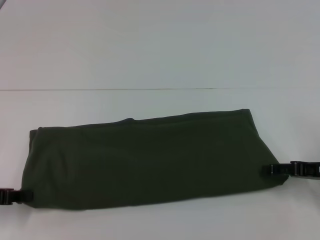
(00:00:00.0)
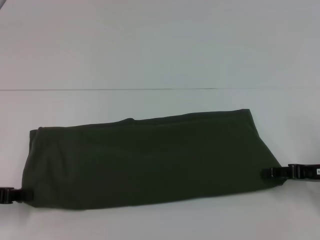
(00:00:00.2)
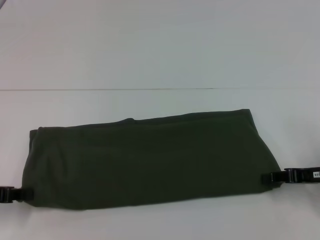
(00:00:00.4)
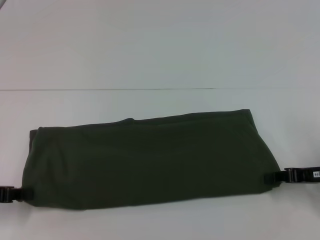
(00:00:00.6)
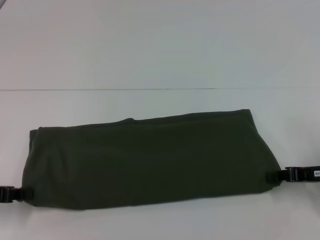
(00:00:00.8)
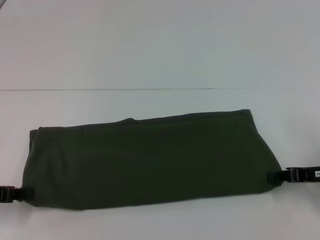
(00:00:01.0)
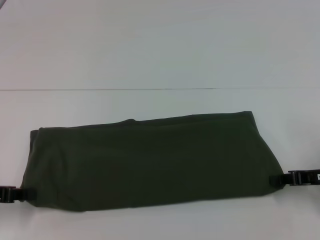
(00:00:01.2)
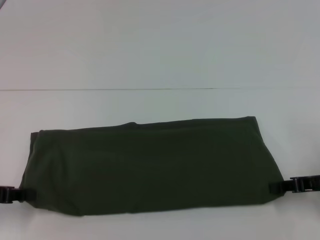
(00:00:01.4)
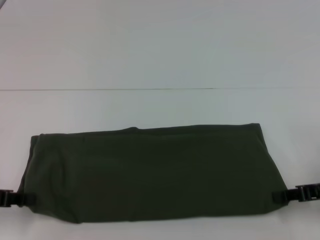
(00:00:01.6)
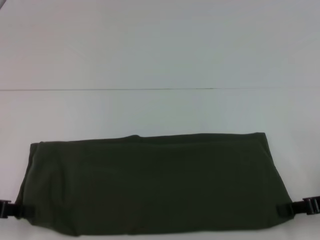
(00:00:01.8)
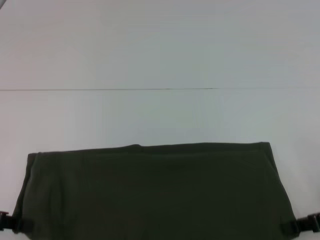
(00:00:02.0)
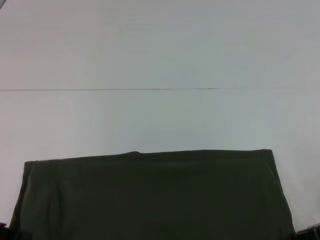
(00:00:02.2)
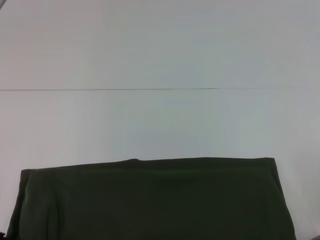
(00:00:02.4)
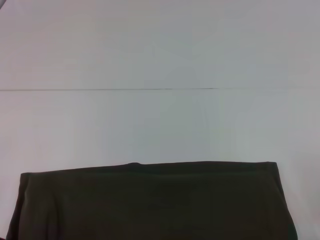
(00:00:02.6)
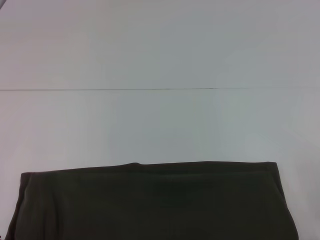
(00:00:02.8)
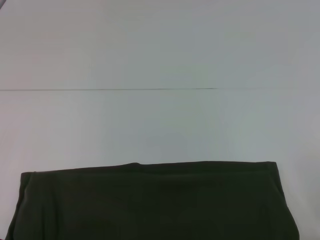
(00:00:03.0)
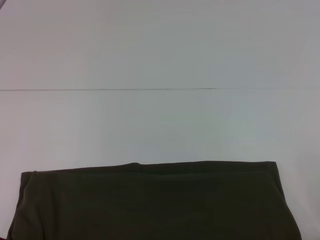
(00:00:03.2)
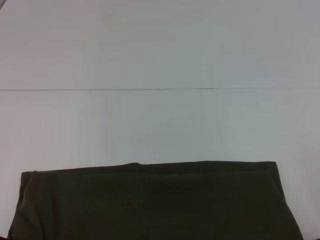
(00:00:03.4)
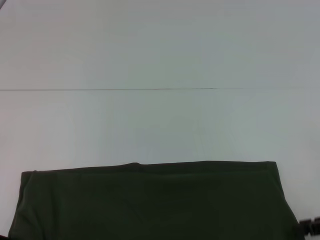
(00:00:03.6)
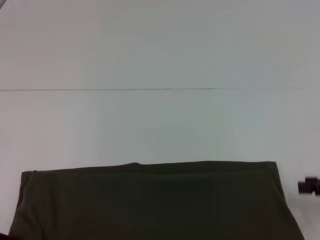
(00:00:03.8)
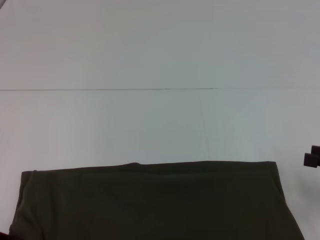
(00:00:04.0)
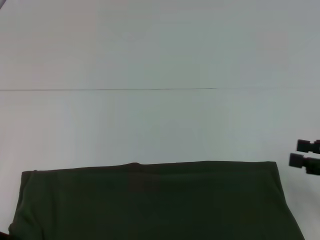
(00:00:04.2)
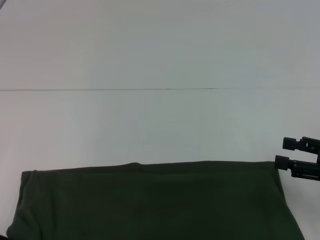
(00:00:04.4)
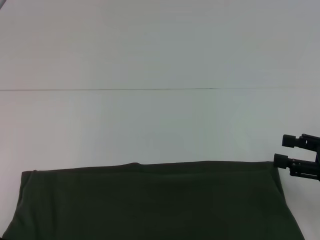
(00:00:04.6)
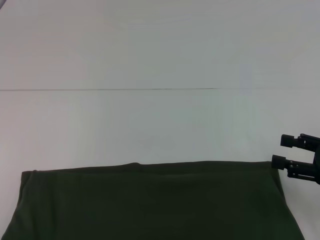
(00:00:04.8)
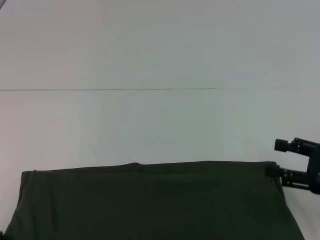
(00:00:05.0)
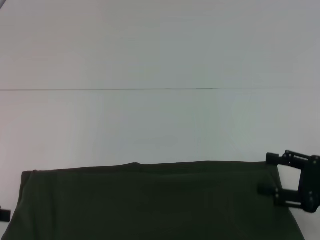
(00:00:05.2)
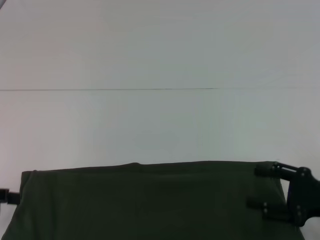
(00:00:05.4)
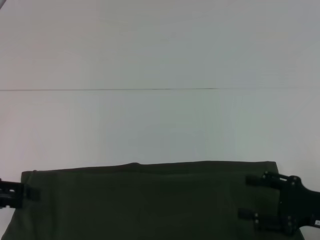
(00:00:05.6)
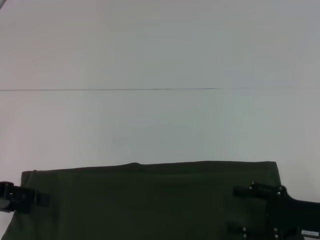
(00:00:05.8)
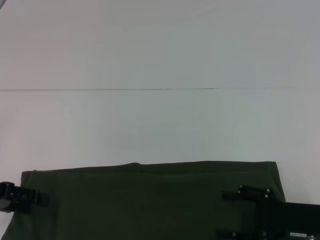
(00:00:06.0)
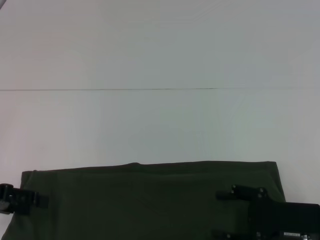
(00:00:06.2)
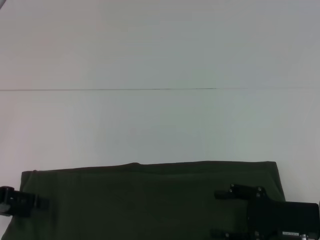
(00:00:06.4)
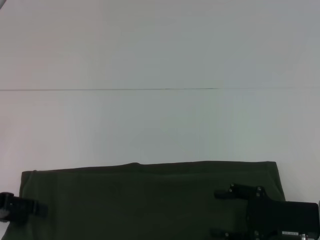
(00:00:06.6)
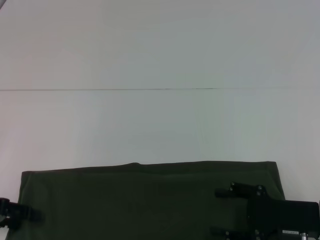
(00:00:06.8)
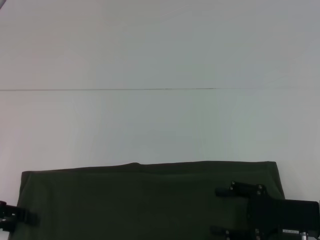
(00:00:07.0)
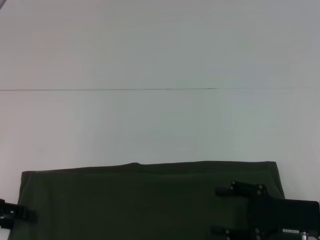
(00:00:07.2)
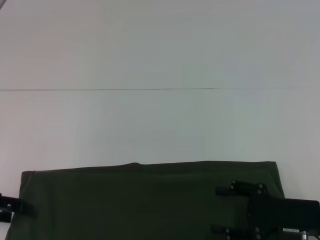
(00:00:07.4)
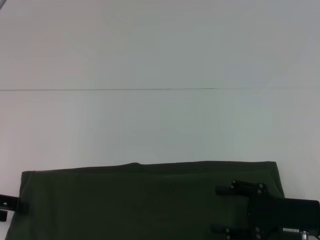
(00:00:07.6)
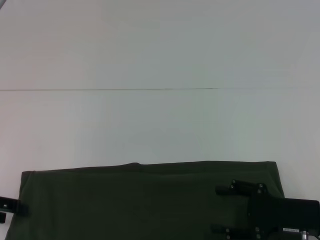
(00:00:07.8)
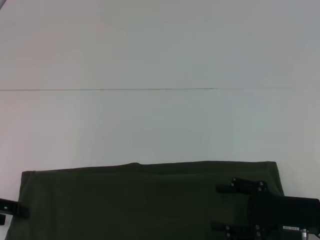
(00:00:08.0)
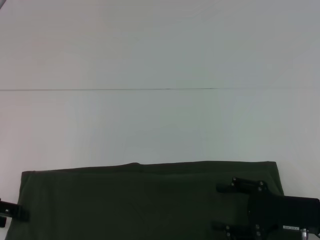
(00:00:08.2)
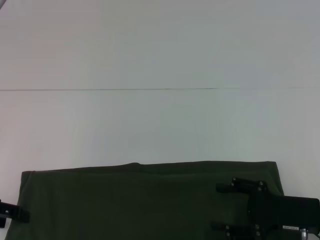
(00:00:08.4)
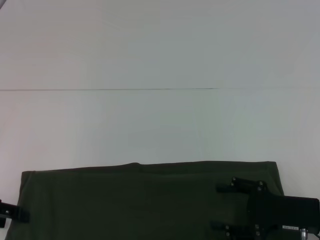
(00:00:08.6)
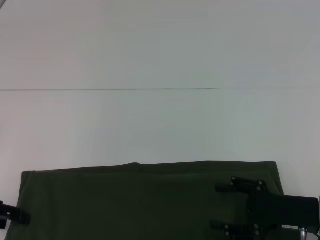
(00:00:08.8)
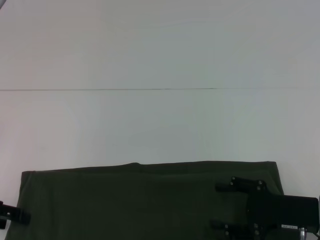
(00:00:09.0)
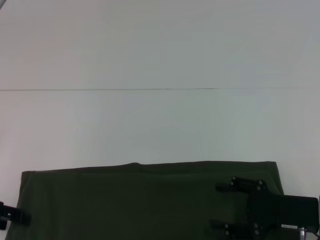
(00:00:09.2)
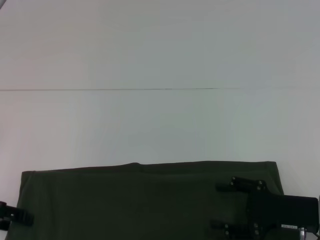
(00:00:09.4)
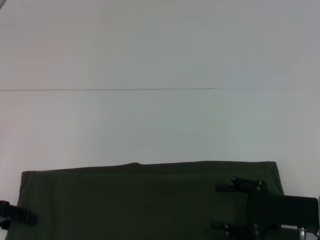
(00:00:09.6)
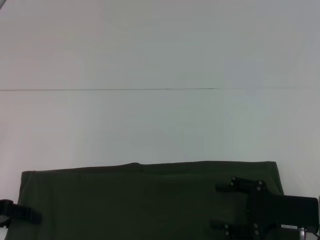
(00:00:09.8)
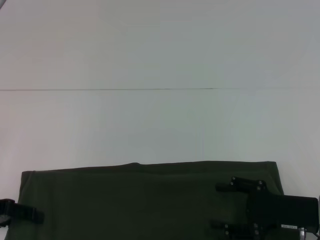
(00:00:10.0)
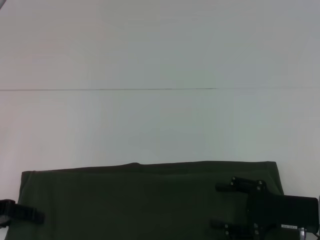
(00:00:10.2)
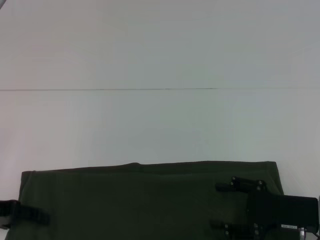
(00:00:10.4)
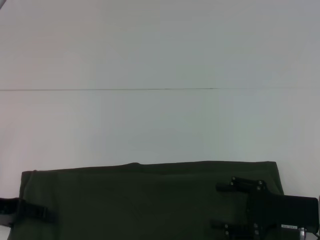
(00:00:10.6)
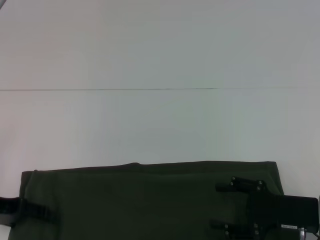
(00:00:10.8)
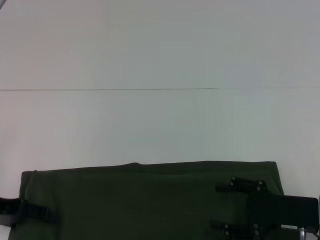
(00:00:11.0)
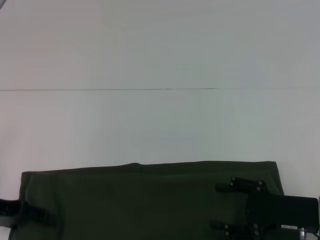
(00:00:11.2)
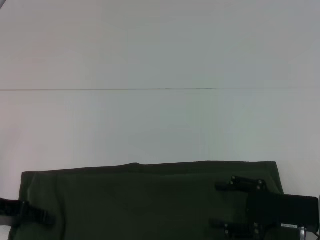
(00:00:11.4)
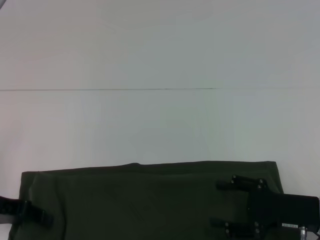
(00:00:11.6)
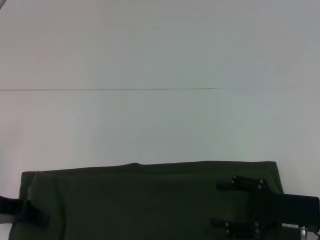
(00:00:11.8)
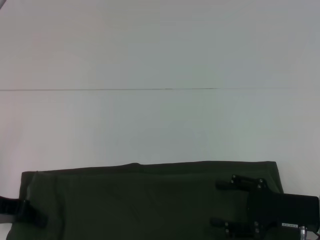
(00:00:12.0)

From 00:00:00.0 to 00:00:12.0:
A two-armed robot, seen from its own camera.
From 00:00:00.0 to 00:00:01.6: The right gripper closes its fingers.
From 00:00:03.0 to 00:00:04.4: The right gripper opens up.
From 00:00:04.4 to 00:00:06.0: The left gripper opens up, while the right gripper travels to the left and downward by some 10 cm.
From 00:00:06.0 to 00:00:09.0: There are only small adjustments of the grippers.

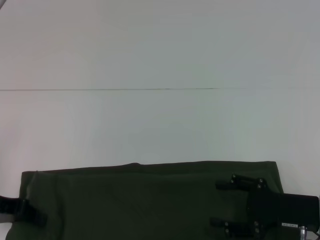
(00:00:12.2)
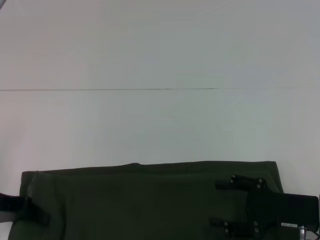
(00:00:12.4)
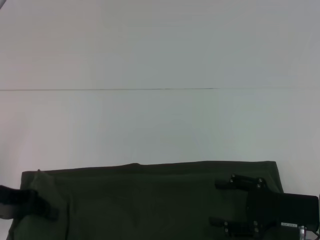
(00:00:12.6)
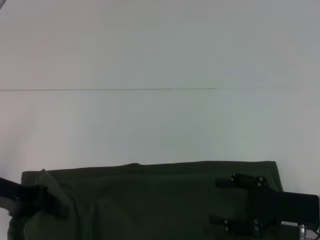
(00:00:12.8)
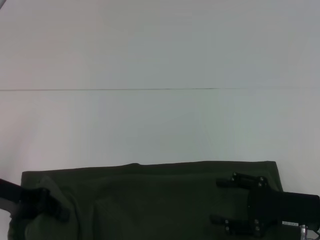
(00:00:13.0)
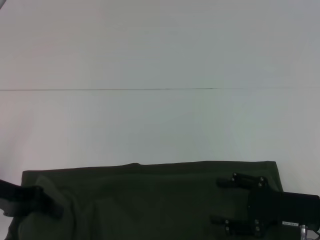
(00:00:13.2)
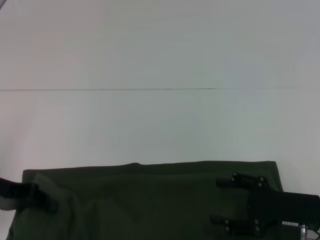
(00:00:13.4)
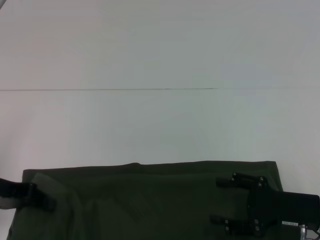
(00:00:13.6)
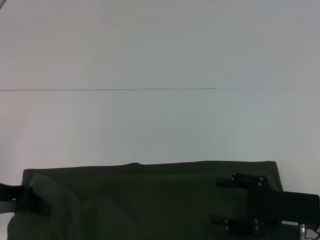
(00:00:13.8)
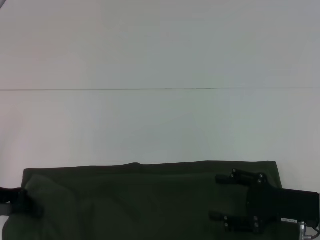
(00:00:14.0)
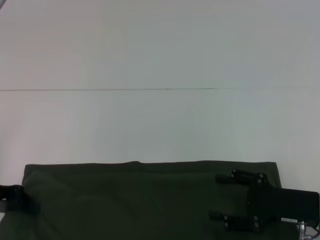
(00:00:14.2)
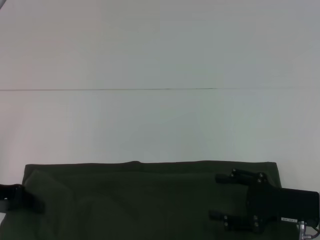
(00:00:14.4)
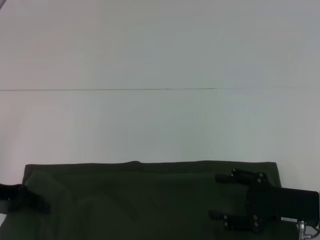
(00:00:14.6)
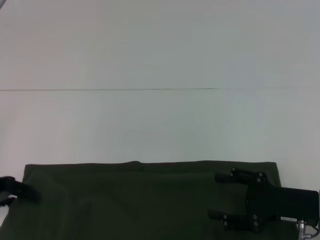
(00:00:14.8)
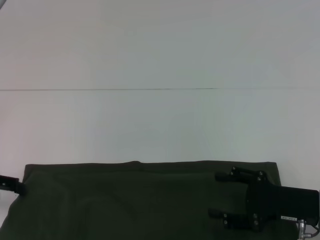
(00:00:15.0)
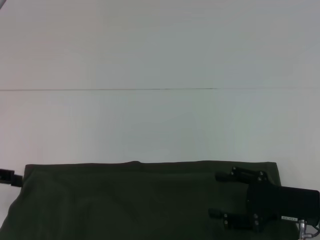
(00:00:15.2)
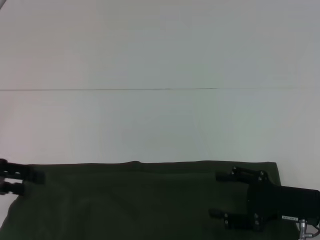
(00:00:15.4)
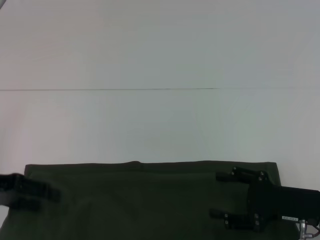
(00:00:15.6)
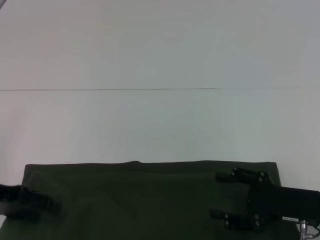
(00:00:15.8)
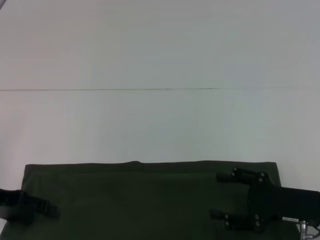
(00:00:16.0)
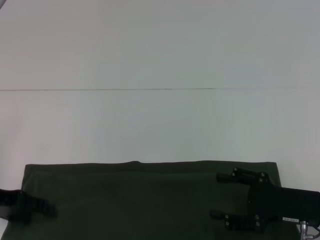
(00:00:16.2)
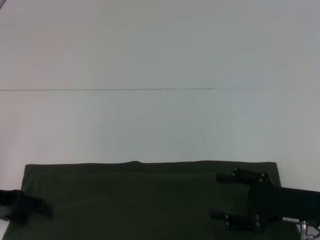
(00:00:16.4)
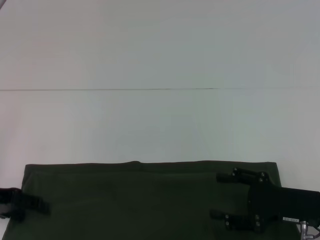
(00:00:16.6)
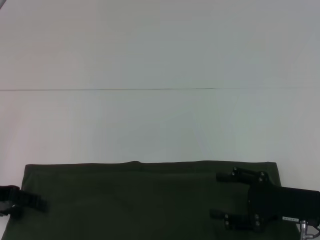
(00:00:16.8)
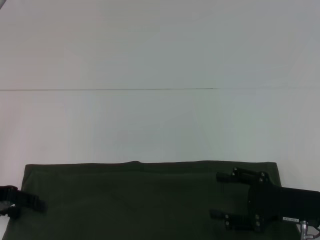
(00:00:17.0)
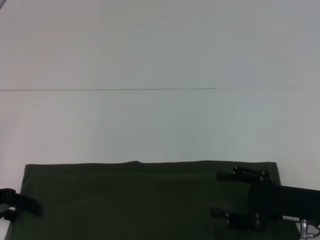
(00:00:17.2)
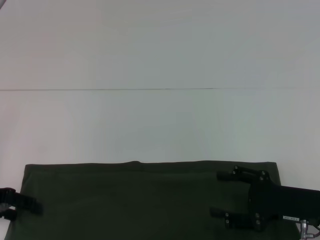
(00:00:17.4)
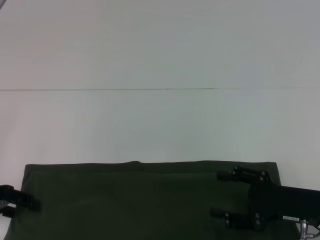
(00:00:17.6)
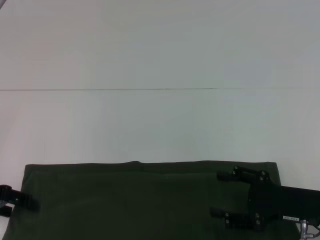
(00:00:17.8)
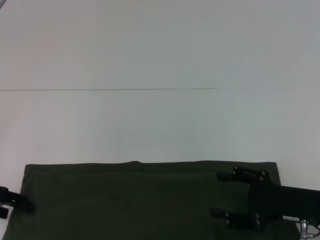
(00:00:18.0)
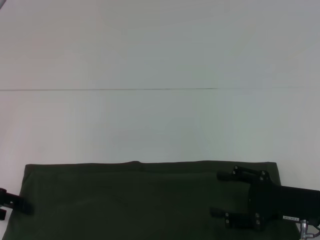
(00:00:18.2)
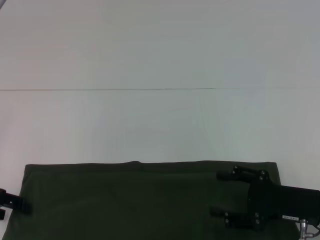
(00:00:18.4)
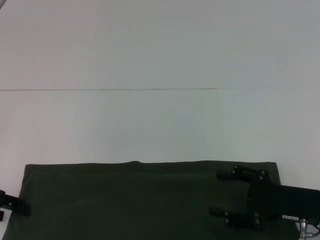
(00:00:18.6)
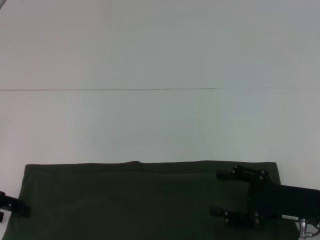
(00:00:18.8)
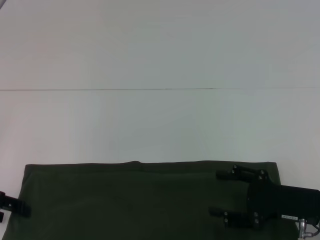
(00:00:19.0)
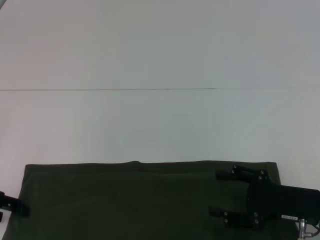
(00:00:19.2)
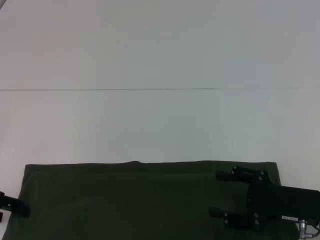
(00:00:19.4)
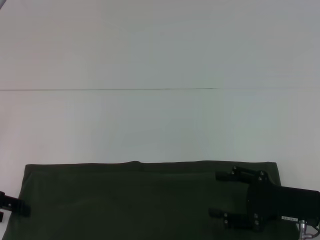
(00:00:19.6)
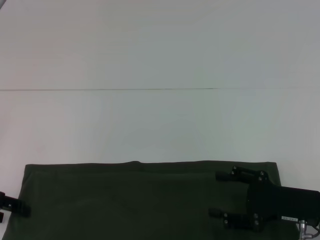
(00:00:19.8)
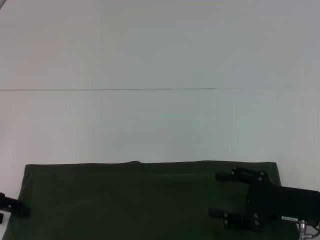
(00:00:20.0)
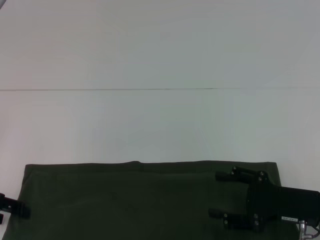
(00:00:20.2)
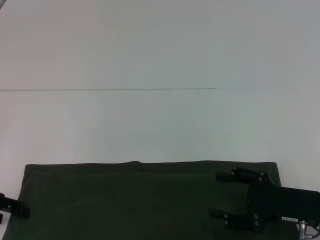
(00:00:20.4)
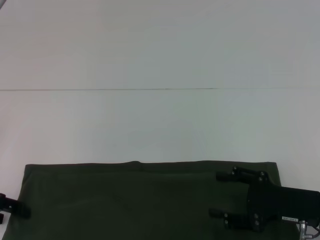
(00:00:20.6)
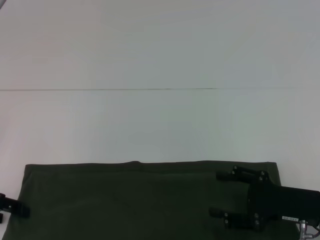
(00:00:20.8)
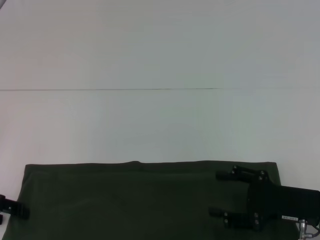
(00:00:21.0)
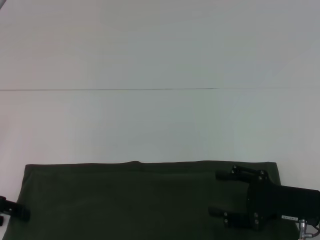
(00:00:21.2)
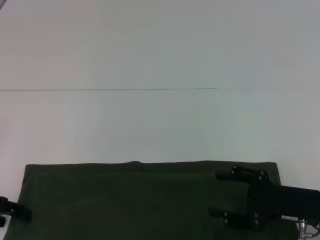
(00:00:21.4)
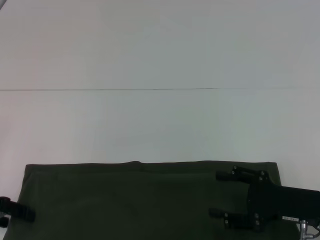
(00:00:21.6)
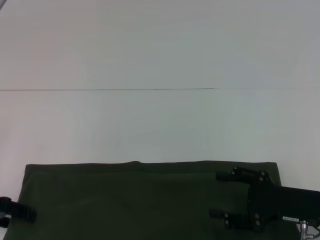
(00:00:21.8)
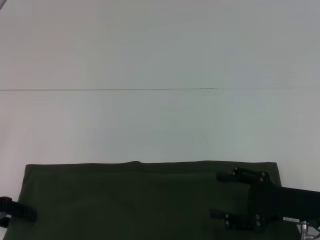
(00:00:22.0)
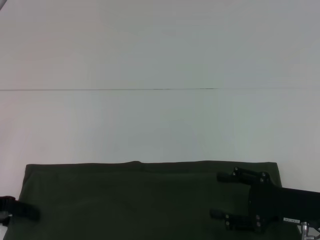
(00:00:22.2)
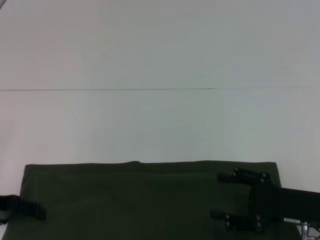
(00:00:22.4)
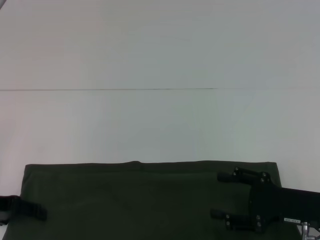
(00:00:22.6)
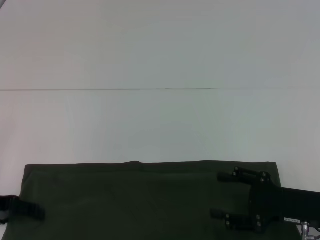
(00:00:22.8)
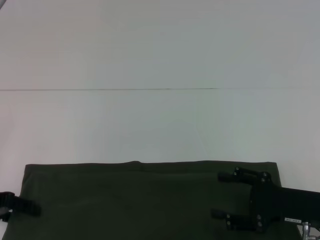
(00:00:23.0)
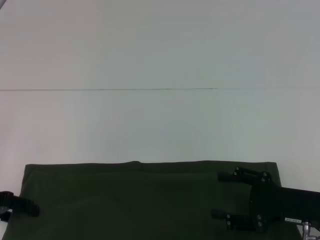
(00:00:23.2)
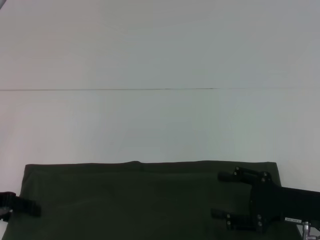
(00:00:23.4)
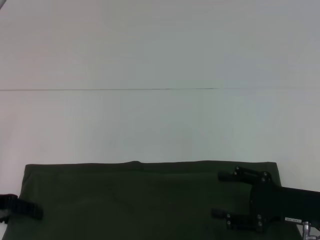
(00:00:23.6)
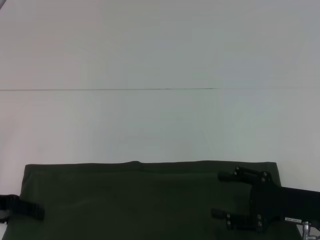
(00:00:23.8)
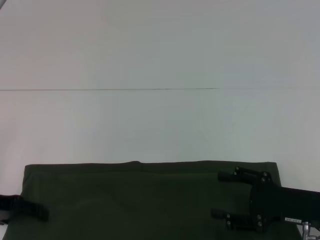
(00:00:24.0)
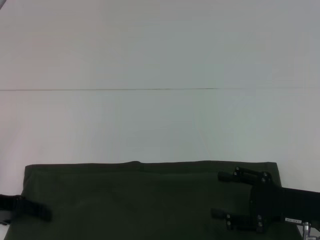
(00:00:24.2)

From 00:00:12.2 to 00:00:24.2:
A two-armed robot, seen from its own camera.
From 00:00:12.2 to 00:00:13.8: The grippers stay close to where they were, moving slightly.
From 00:00:13.8 to 00:00:15.2: The left gripper changes place by approximately 5 cm, and opens up.
From 00:00:15.2 to 00:00:16.6: The left gripper changes place by roughly 5 cm.
From 00:00:18.2 to 00:00:19.8: The two grippers keep their place.
From 00:00:19.8 to 00:00:21.2: The two grippers keep their place.
From 00:00:21.2 to 00:00:22.6: The grippers stay close to where they were, moving slightly.
From 00:00:22.6 to 00:00:24.2: The two grippers keep their place.
